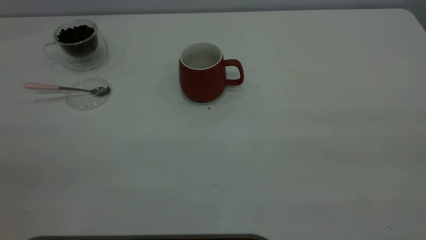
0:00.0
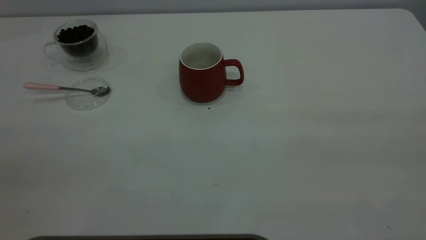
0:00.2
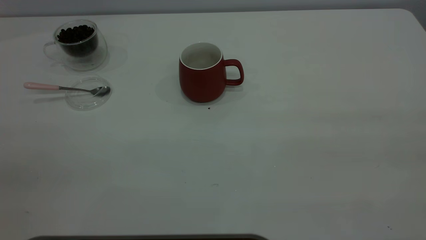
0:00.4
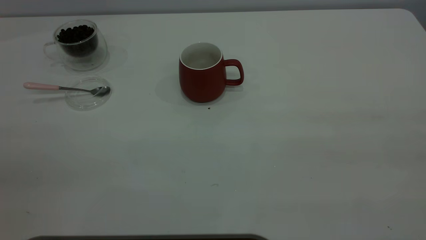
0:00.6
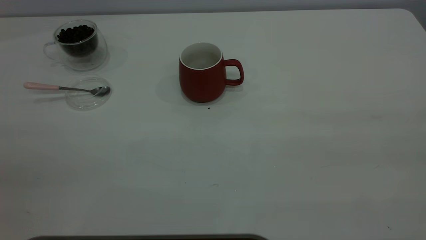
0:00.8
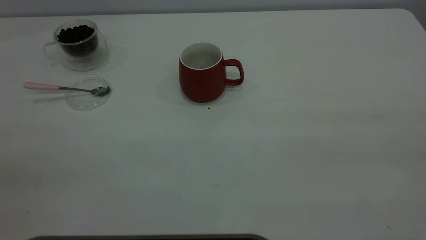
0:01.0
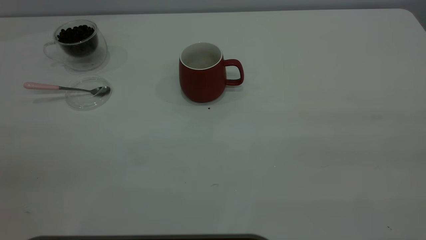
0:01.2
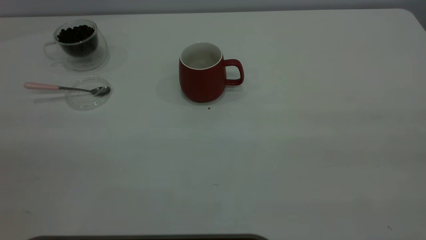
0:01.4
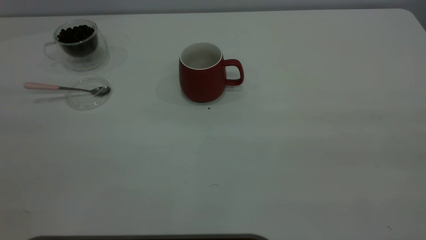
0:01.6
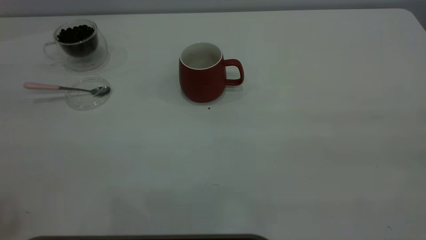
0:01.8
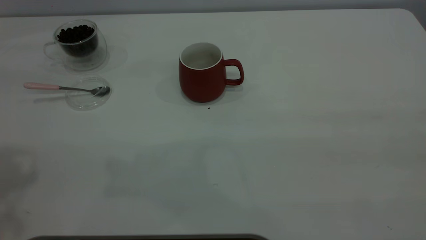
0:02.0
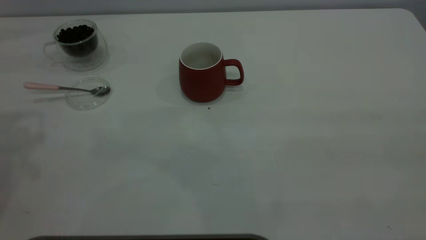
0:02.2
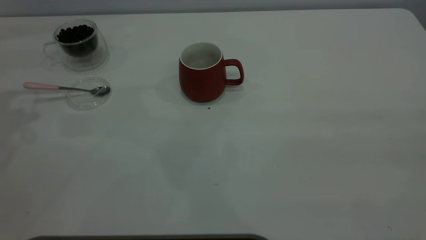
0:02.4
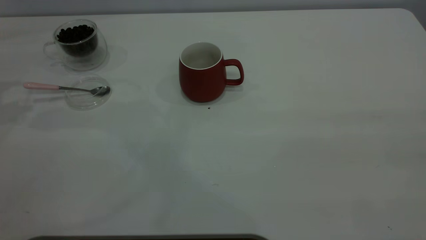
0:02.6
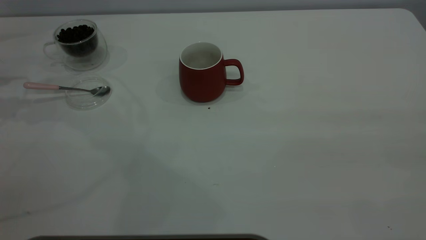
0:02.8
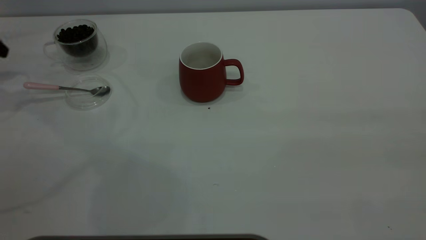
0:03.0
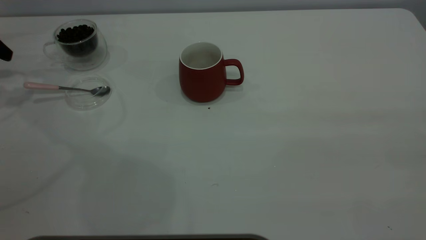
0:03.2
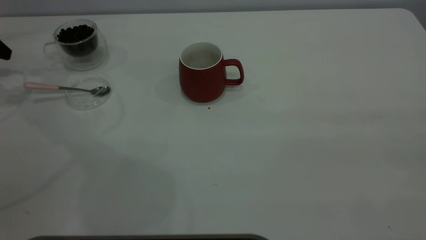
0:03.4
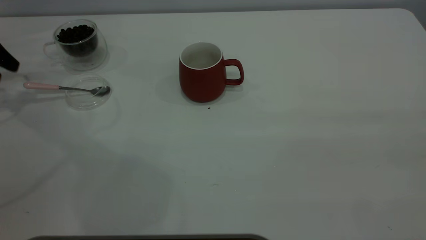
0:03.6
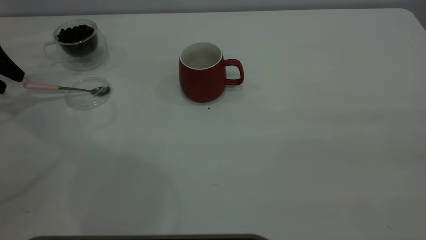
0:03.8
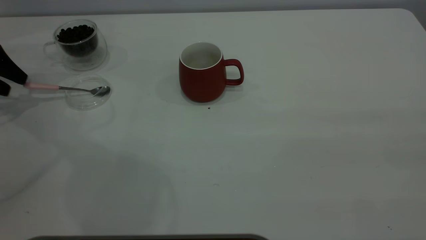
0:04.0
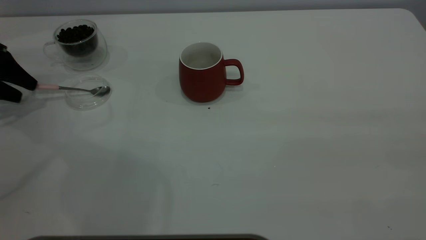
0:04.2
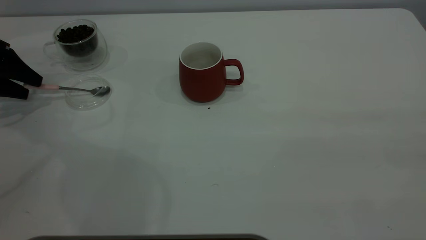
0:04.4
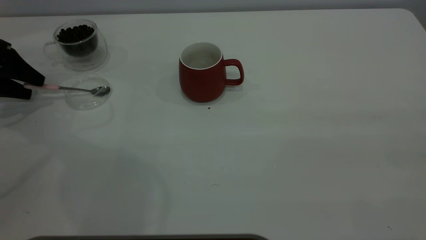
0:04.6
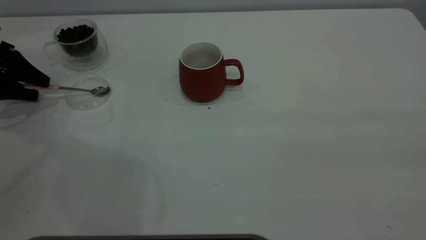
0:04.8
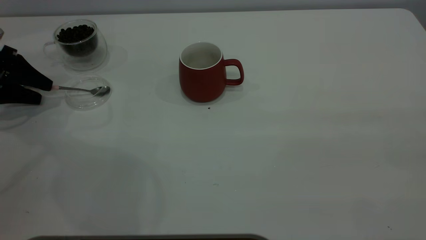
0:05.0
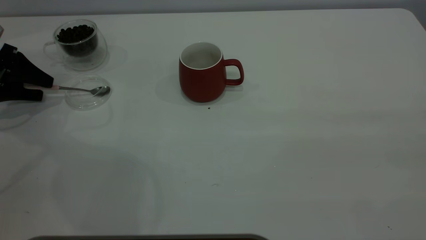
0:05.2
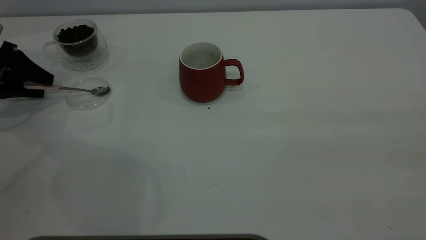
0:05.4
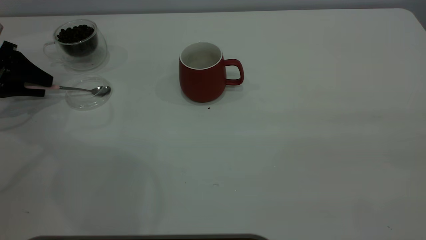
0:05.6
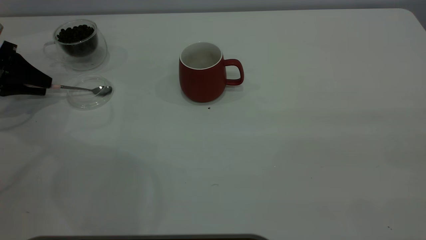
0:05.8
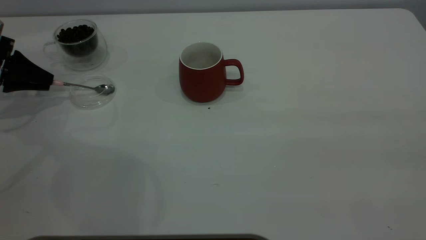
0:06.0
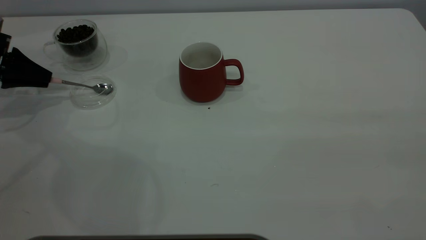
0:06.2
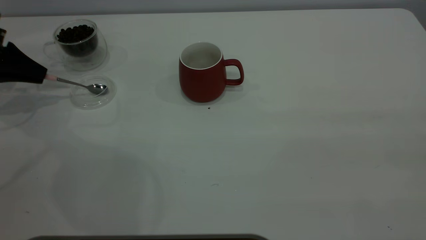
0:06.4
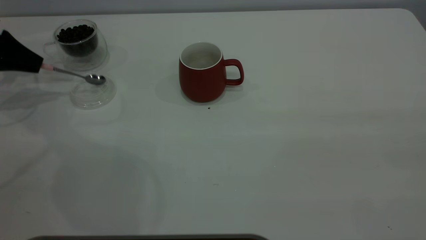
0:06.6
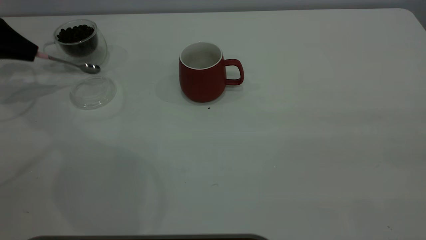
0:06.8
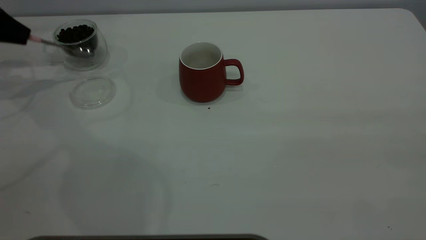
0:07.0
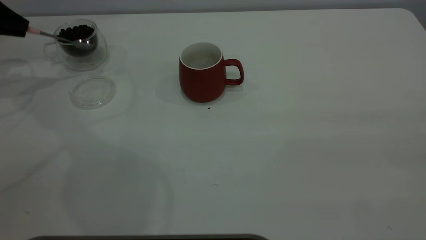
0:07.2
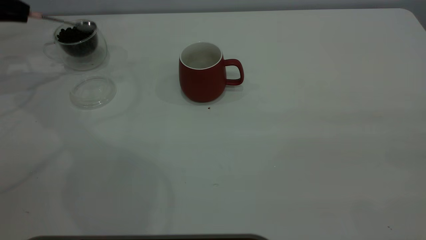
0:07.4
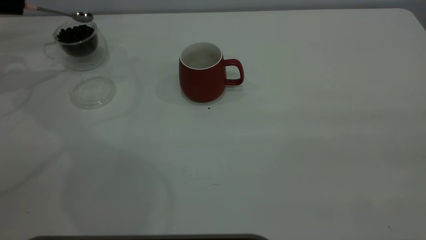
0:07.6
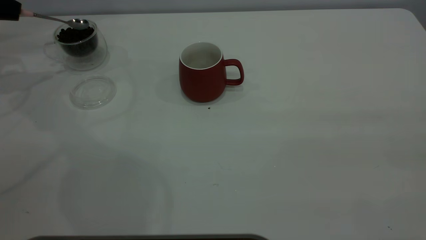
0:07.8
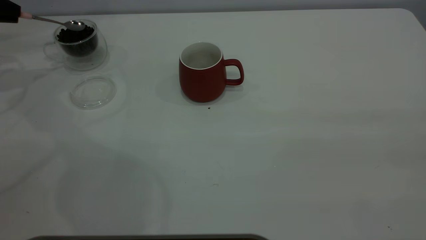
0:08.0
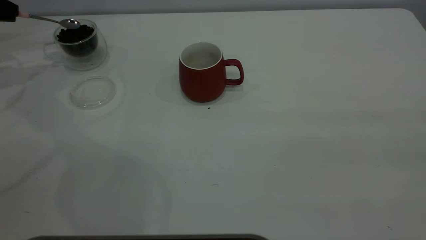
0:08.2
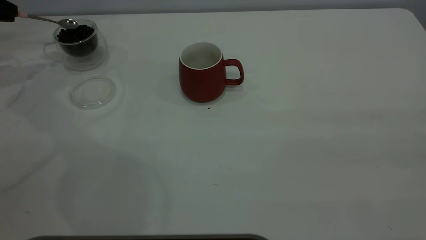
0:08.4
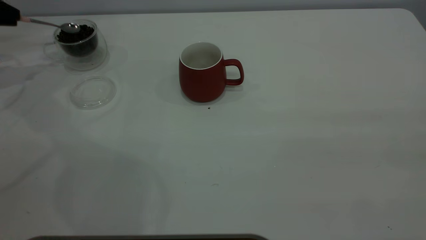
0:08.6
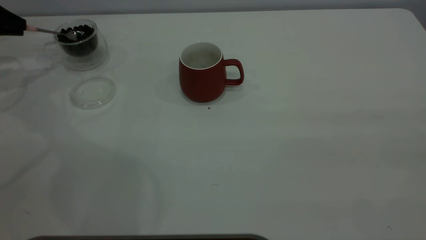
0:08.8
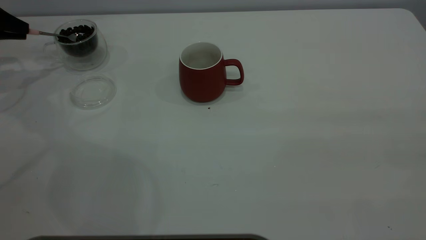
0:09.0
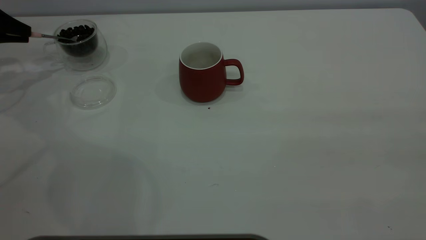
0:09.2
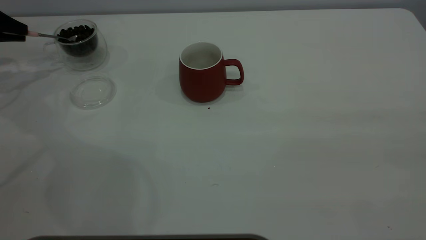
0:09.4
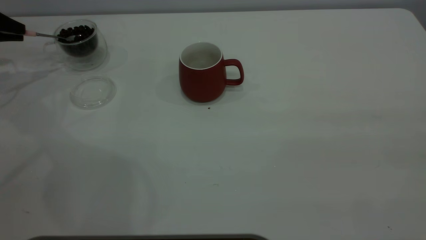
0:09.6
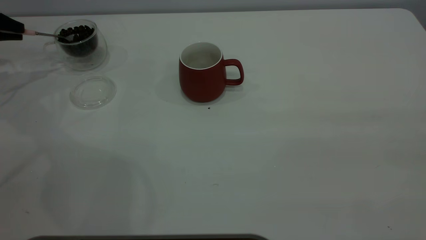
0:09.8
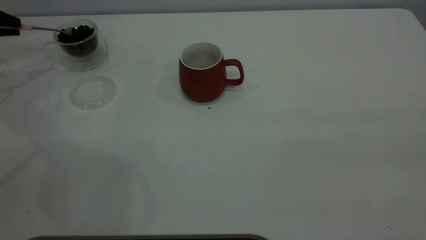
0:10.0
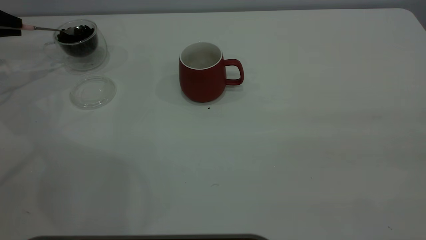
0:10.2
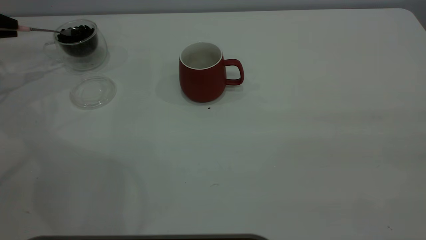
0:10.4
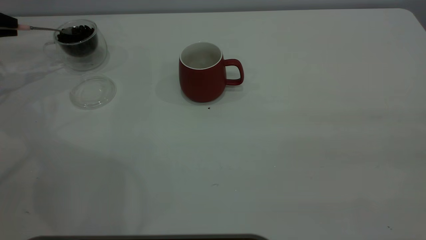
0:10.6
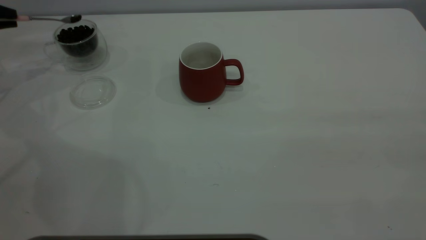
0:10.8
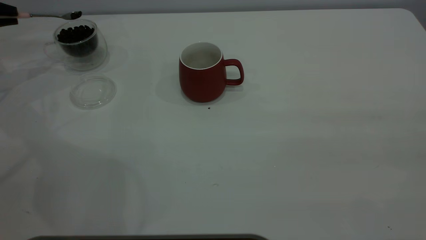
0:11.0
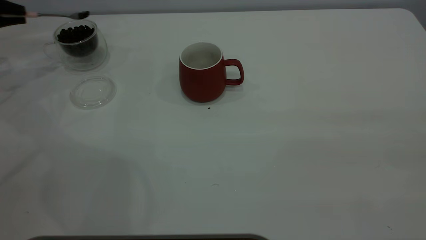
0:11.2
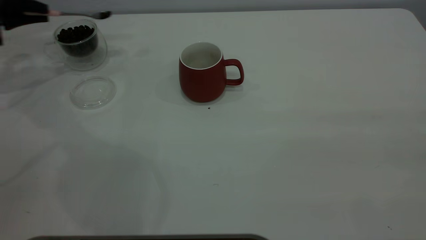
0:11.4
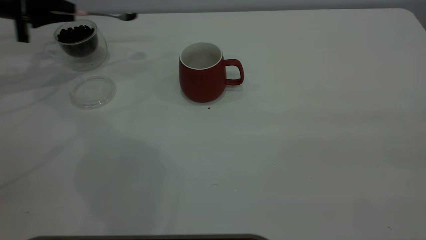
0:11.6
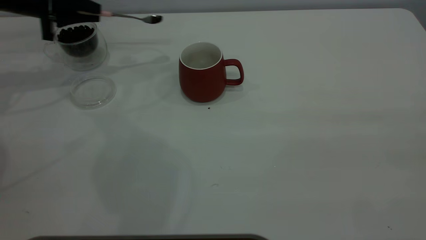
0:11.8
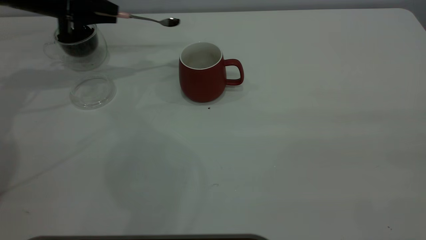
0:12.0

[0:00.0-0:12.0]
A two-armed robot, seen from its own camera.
Task of the whole recording: the right gripper place the red cup in the center of the table, the left gripper take the pink spoon from the cup lid and scoop out the coffee beans from the coffee cup and put them into the red cup, the left gripper put the spoon back into the cup lid.
Step, 0:00.0 to 0:06.8: Pick up the spoon.
0:03.0 to 0:04.4: The left gripper heads downward, covering approximately 10 cm.
0:04.4 to 0:06.0: The left gripper closes up.
0:06.0 to 0:07.6: The left gripper heads upward, covering approximately 10 cm.
0:07.6 to 0:09.0: There are only small adjustments of the grippers.
0:10.4 to 0:12.0: The left gripper is displaced to the right by some 20 cm.

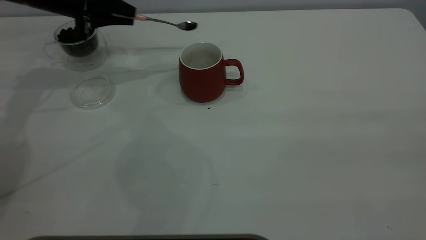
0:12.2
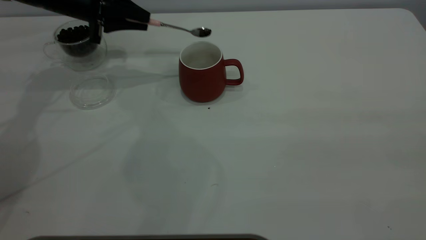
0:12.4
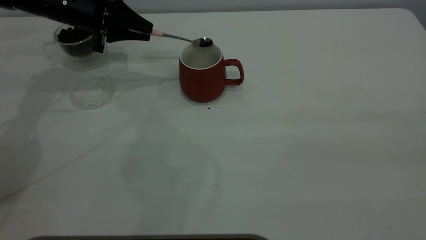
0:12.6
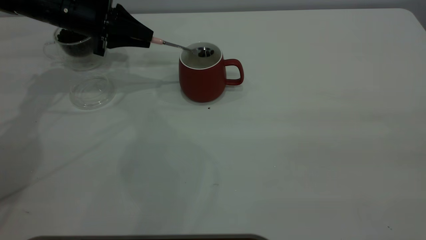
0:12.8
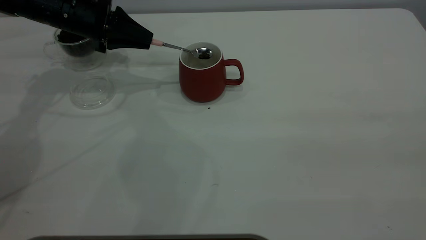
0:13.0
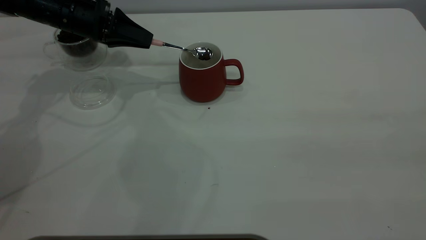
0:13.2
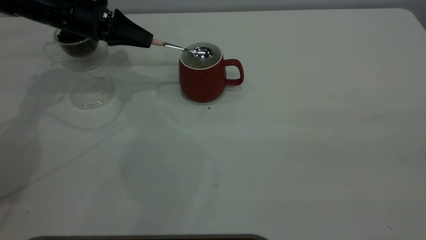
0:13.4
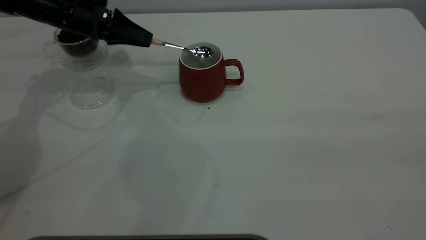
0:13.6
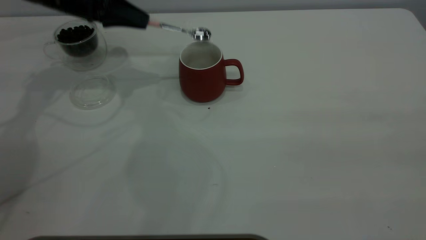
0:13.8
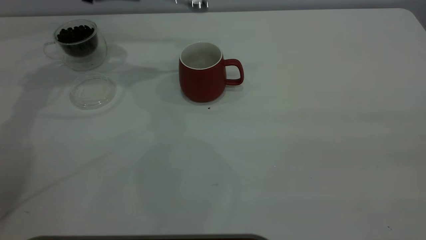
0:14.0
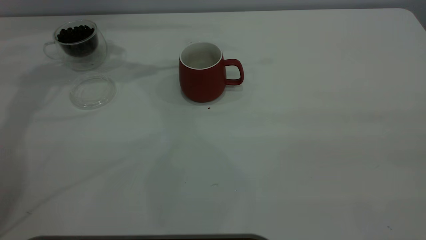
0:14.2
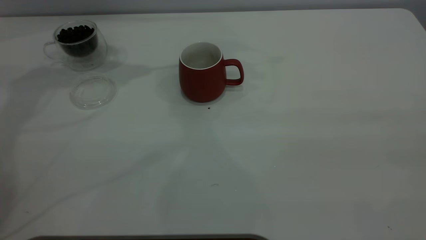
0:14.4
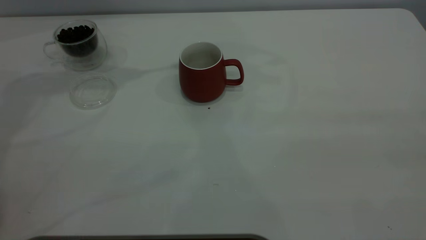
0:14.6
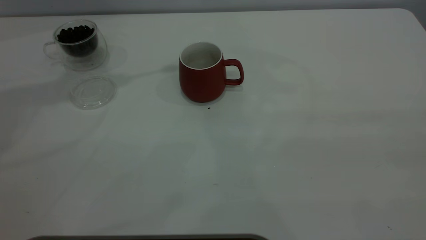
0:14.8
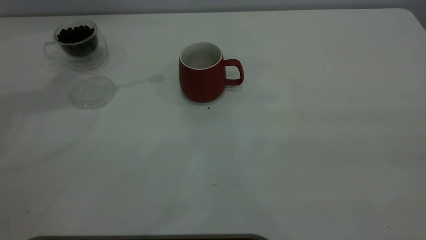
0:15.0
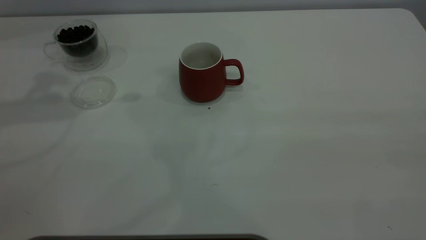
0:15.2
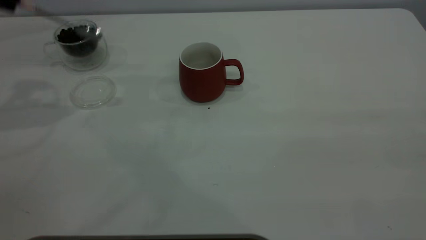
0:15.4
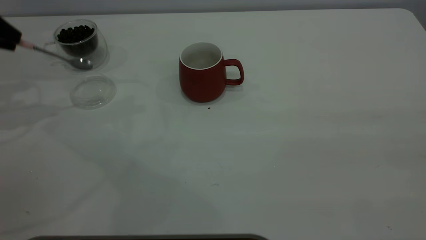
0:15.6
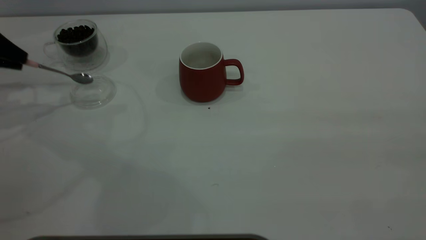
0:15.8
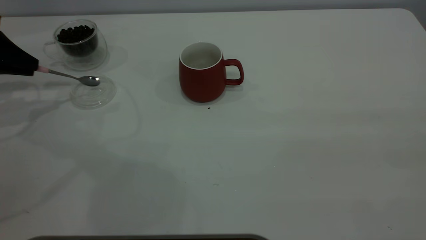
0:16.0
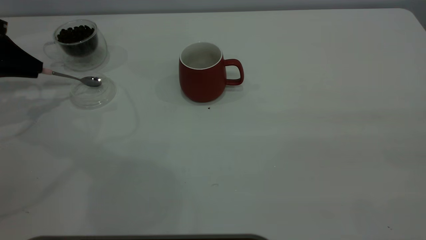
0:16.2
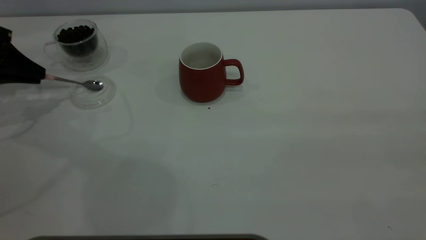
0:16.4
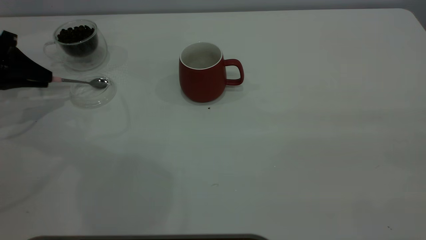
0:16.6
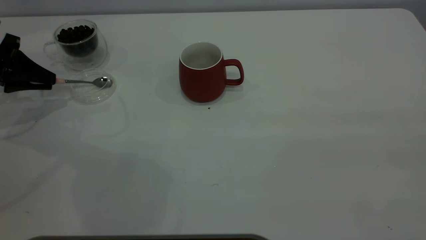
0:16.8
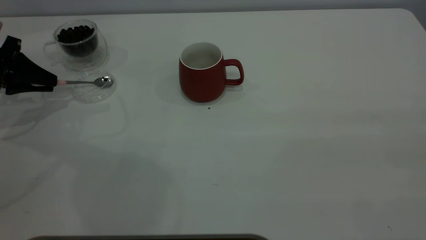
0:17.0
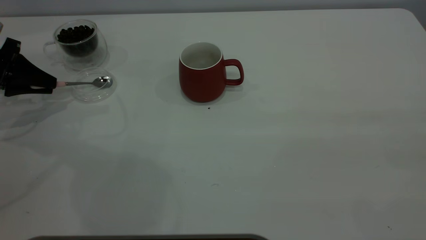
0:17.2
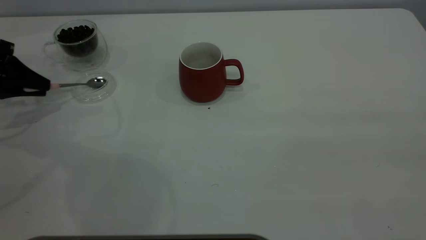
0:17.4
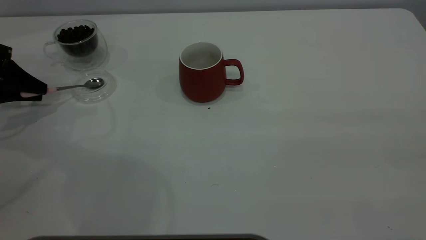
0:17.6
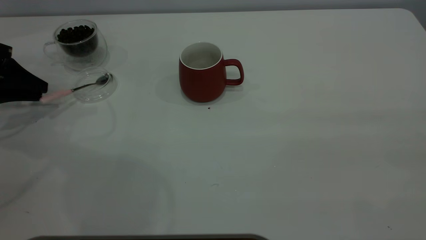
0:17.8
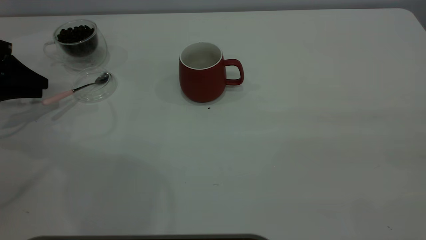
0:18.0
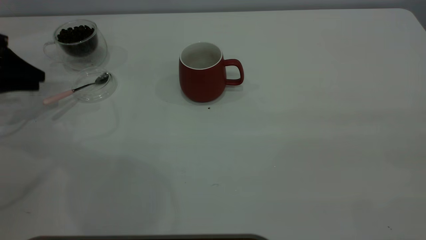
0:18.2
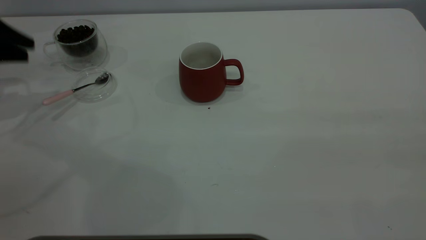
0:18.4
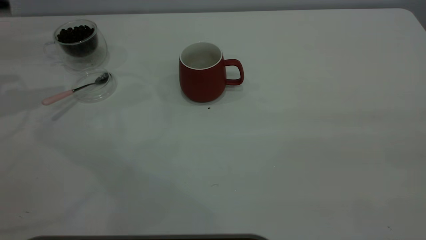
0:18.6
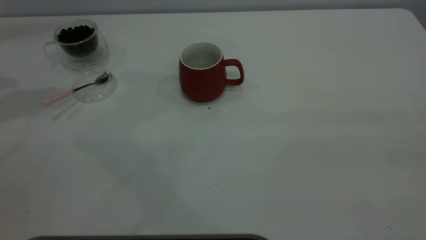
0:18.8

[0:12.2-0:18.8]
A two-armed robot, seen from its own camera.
Task of the whole recording: the right gripper place the red cup in the center of the table, the left gripper take the pink spoon from the cup lid and scoop out the coffee beans from the coffee cup and put them into the red cup, the left gripper put the spoon back into the cup lid.
Step, 0:14.0 to 0:18.2: Place the spoon back in its original place.
0:13.8 to 0:15.4: The left gripper moves to the left, backward and upward, approximately 20 cm.
0:15.4 to 0:17.2: The left gripper heads downward, covering about 15 cm.
0:17.2 to 0:18.8: The left gripper shifts some 25 cm upward, and opens its fingers.
